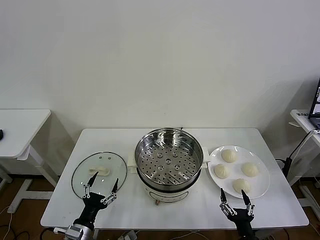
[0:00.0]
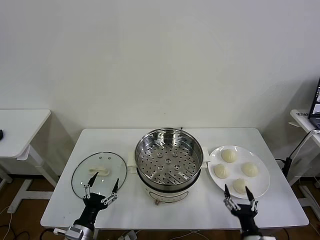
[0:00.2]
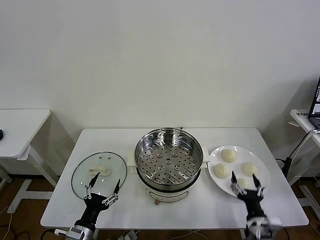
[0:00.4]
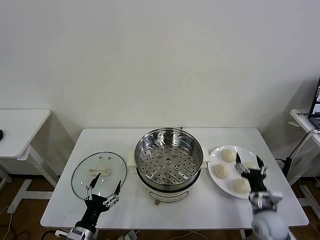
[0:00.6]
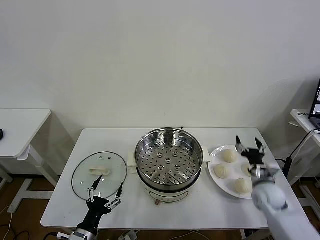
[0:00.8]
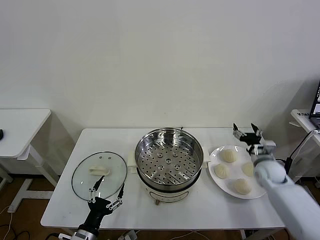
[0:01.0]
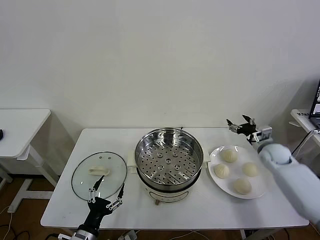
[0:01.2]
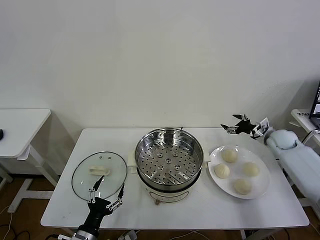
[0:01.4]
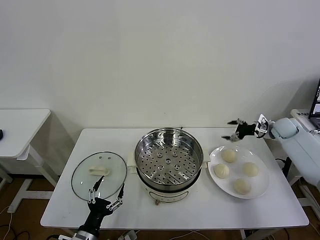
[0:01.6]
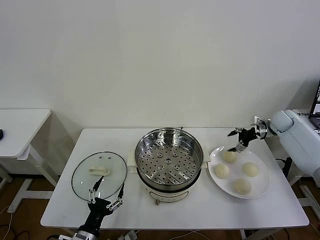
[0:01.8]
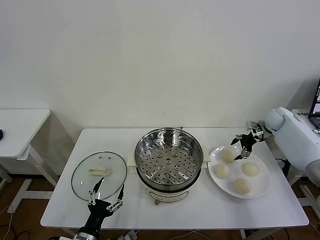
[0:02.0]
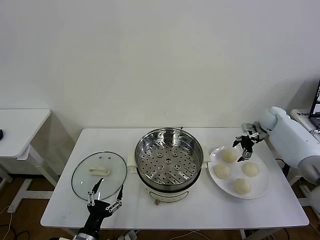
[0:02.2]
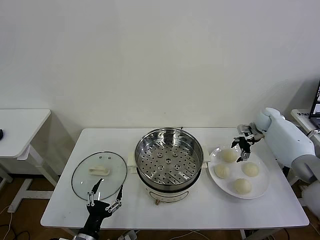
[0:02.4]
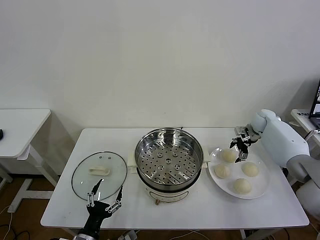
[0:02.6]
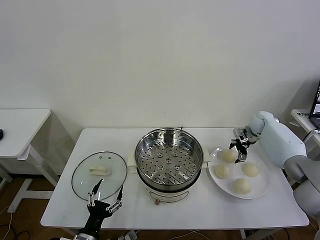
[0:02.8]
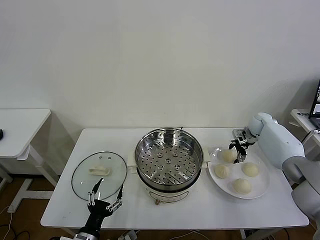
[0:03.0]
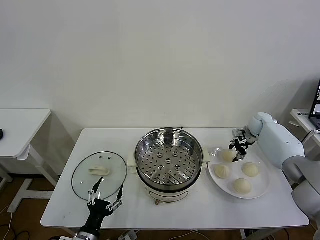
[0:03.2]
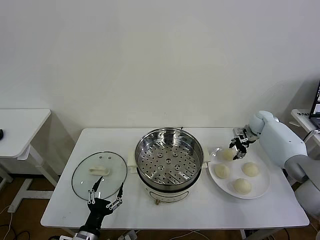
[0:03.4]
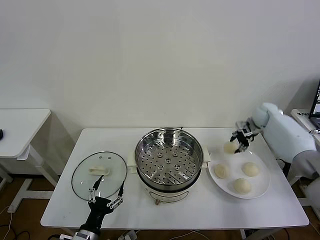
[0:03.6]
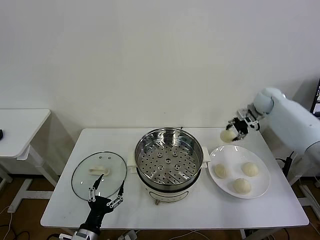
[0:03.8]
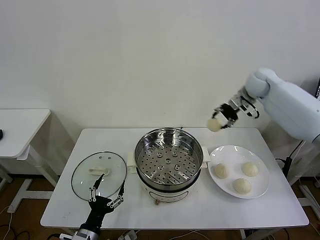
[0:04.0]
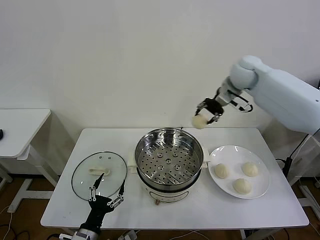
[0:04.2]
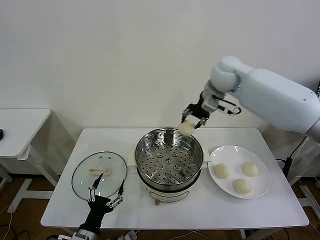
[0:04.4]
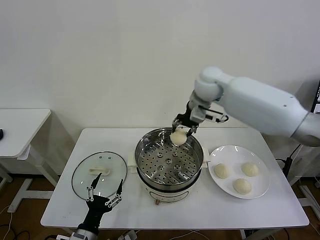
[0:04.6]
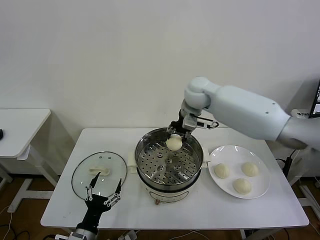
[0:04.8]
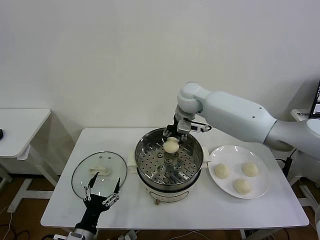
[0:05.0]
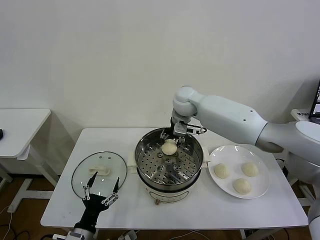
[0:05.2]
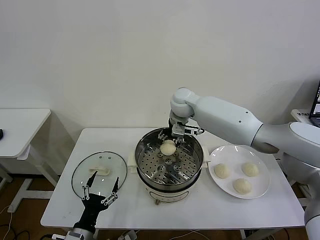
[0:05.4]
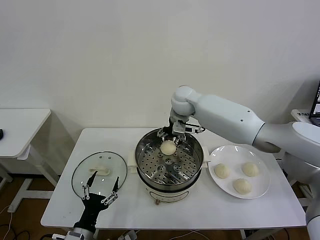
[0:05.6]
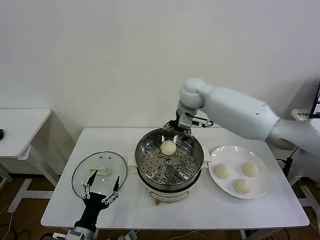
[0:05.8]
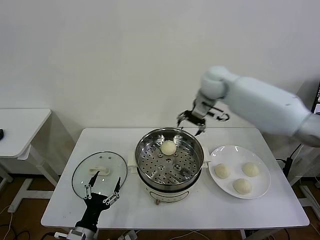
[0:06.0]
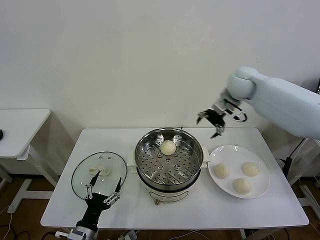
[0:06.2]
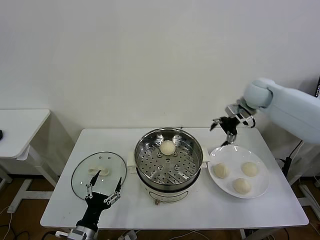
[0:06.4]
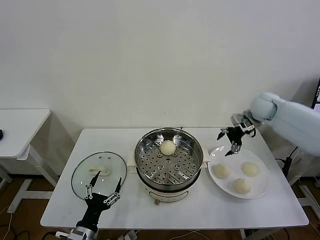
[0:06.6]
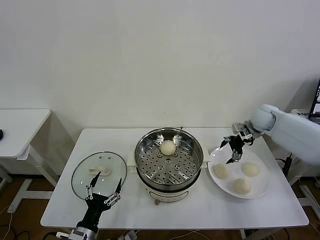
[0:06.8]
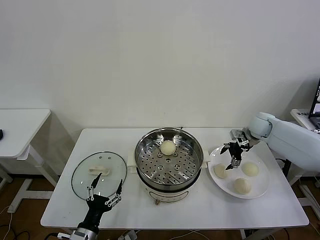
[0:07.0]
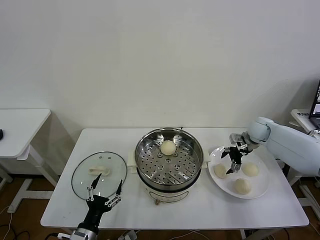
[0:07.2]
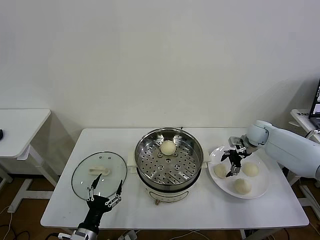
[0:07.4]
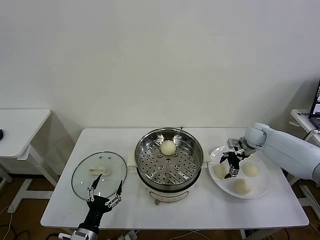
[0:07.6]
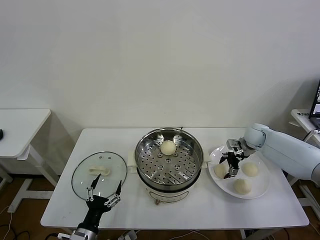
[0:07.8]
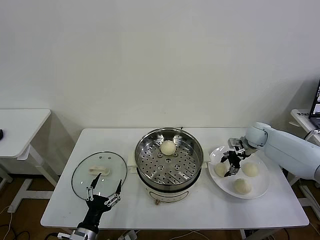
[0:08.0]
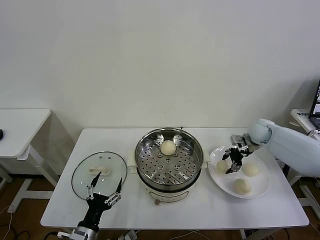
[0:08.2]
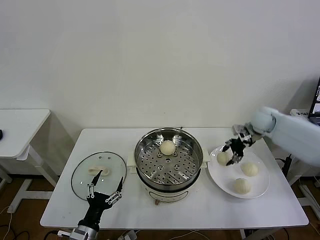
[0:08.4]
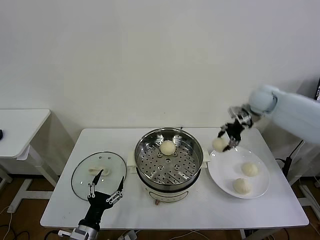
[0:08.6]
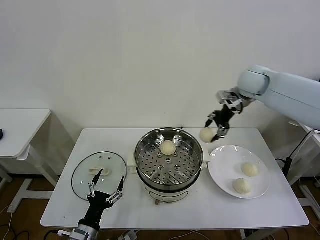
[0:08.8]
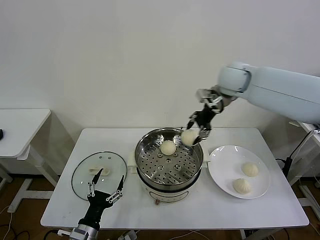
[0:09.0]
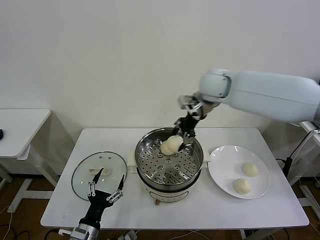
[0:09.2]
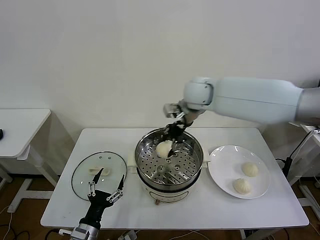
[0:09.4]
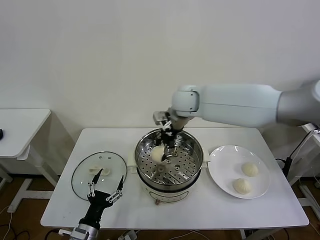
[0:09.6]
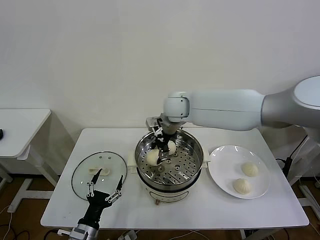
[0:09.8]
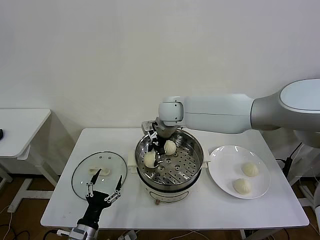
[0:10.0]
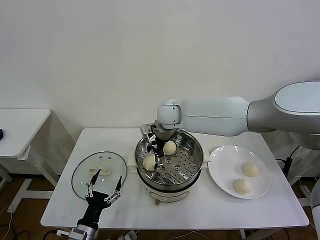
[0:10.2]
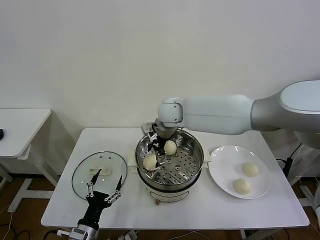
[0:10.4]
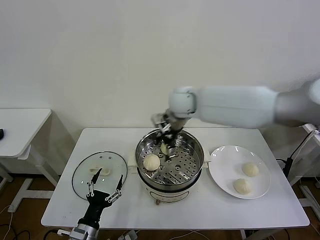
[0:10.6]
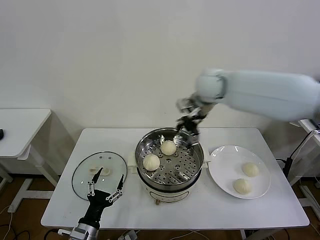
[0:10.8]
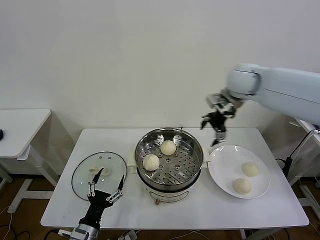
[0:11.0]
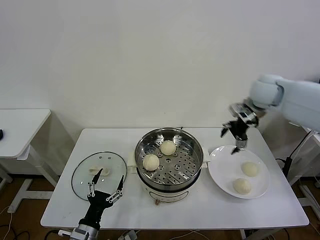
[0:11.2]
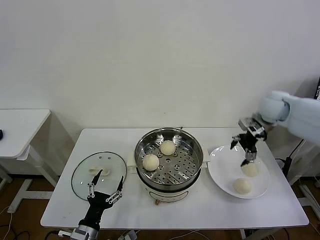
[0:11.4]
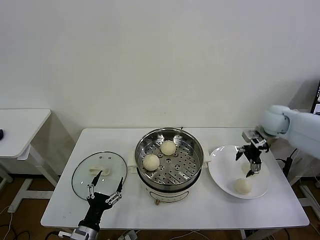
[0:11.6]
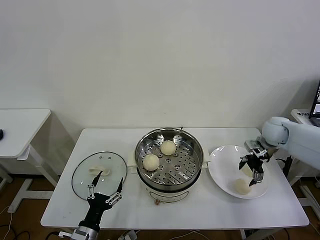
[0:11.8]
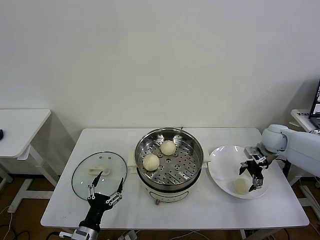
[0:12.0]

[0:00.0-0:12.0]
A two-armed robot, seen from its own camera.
Task of the whole recording: take steamed baozi put them in steamer then cover it.
Step, 0.0 to 3.0 s: Grasp the baozi in the plate with right gripper.
Step, 3.4 to 5.4 s: Place the baozi on the steamer with right gripper.
Step, 5.6 to 8.0 s: Grasp the baozi in the plate with right gripper.
Step, 8.2 to 10.2 s: Place the baozi on the steamer with right gripper.
1.6 to 3.0 s: The right gripper is displaced to the left by some 5 cm.
3.0 to 4.4 s: The right gripper moves to the left and upward, about 35 cm, and closes up.
4.4 to 6.0 s: The right gripper goes to the left and returns, approximately 10 cm each way, and opens its fingers.
6.0 to 7.6 s: The right gripper shifts about 30 cm downward and to the right.
7.6 to 9.0 s: The right gripper is displaced upward and to the left by approximately 30 cm, and closes up.
9.0 to 10.4 s: The right gripper is displaced to the left and downward by roughly 15 cm, and opens.
10.4 to 12.0 s: The right gripper goes roughly 40 cm to the right.

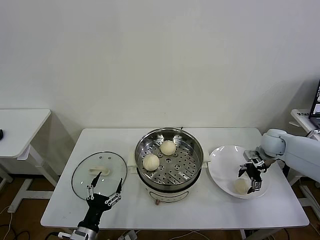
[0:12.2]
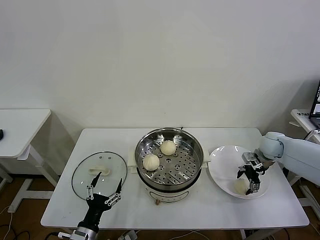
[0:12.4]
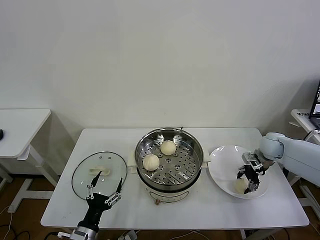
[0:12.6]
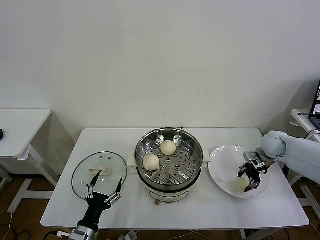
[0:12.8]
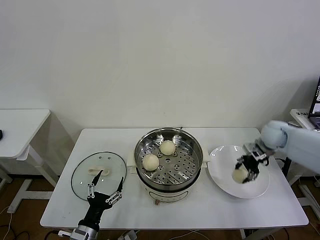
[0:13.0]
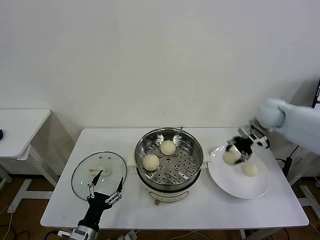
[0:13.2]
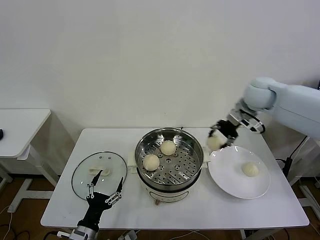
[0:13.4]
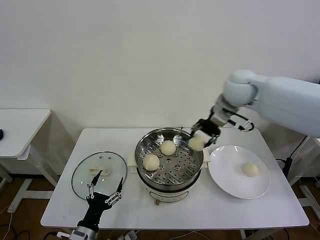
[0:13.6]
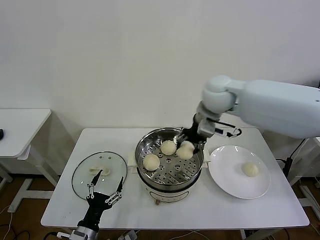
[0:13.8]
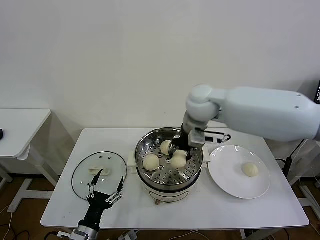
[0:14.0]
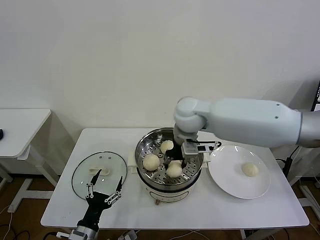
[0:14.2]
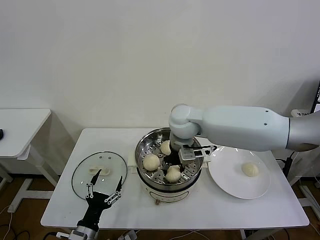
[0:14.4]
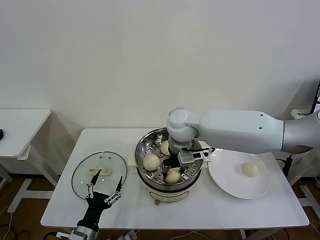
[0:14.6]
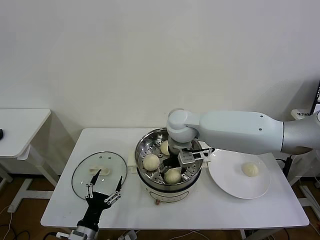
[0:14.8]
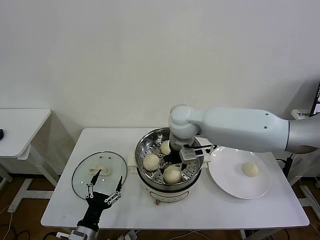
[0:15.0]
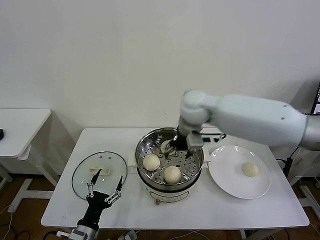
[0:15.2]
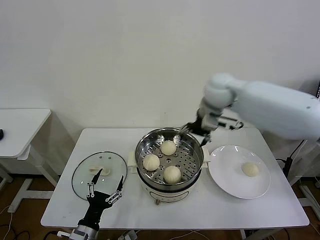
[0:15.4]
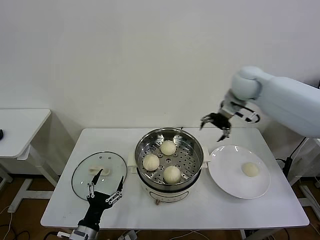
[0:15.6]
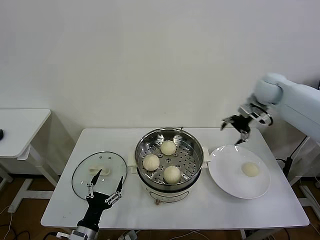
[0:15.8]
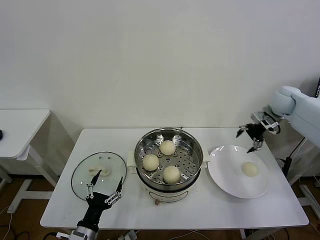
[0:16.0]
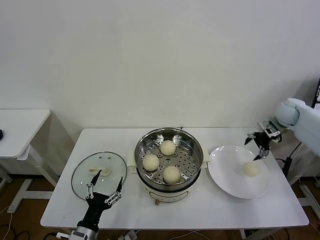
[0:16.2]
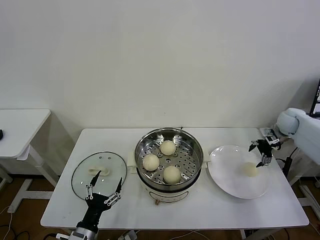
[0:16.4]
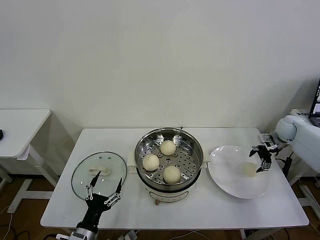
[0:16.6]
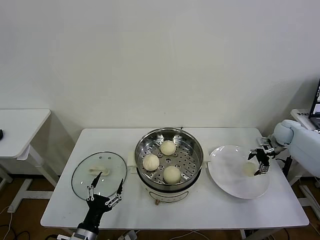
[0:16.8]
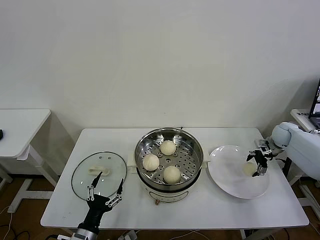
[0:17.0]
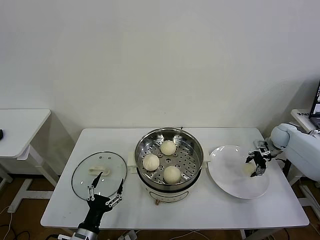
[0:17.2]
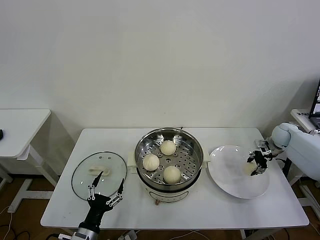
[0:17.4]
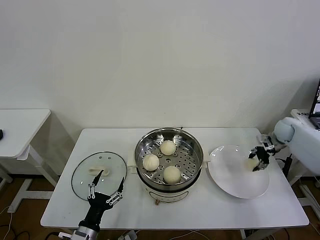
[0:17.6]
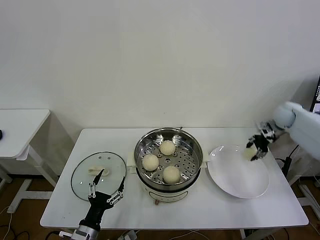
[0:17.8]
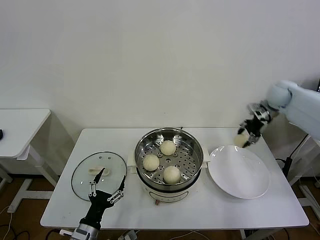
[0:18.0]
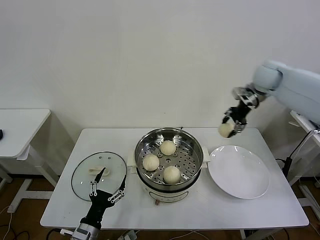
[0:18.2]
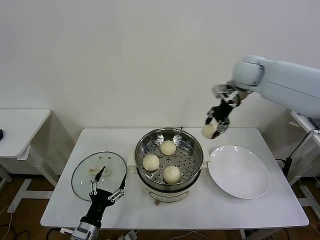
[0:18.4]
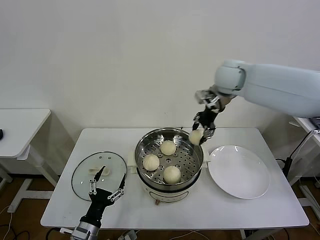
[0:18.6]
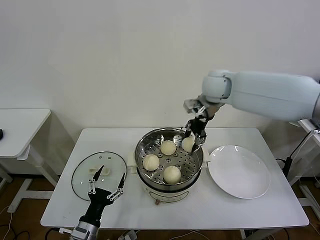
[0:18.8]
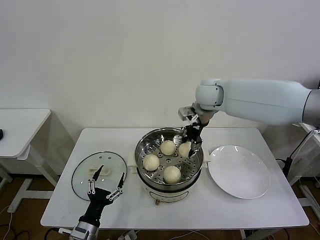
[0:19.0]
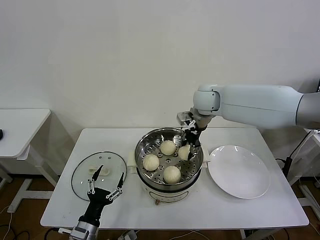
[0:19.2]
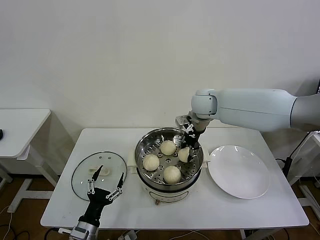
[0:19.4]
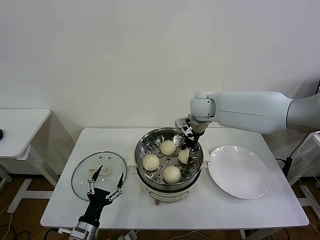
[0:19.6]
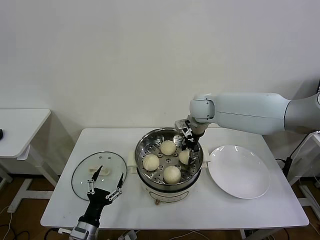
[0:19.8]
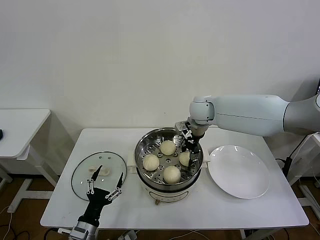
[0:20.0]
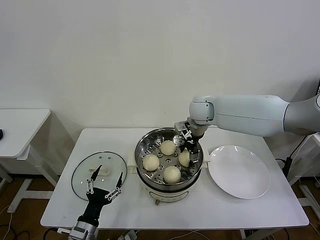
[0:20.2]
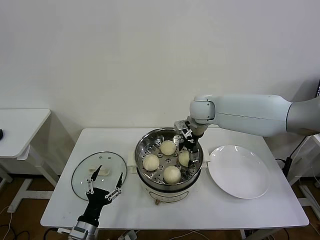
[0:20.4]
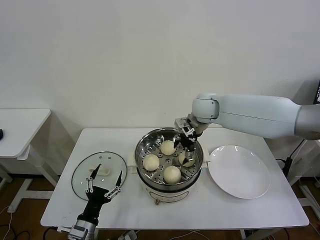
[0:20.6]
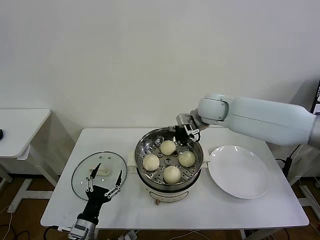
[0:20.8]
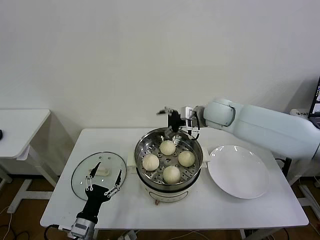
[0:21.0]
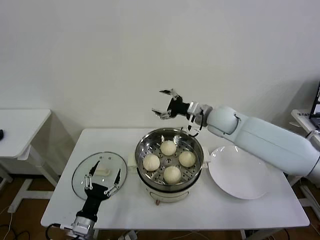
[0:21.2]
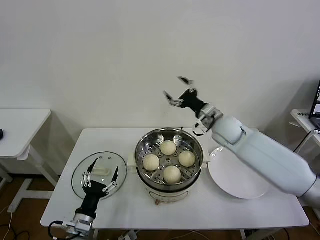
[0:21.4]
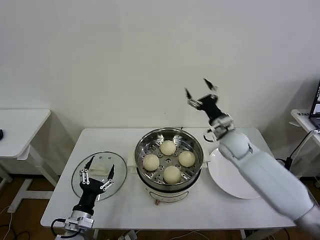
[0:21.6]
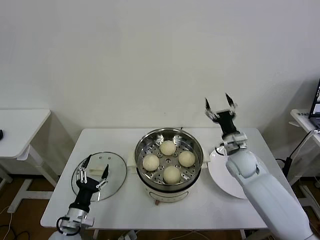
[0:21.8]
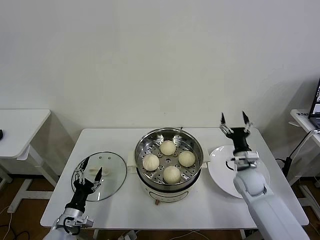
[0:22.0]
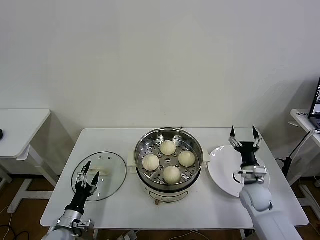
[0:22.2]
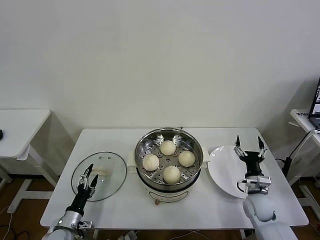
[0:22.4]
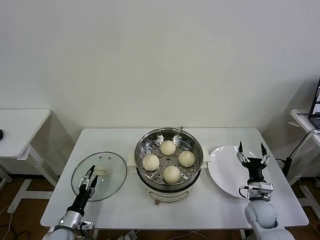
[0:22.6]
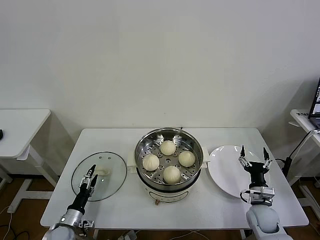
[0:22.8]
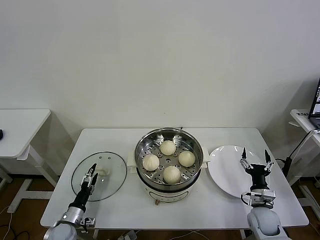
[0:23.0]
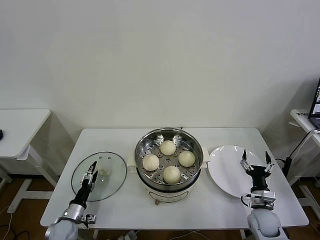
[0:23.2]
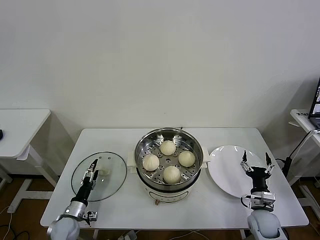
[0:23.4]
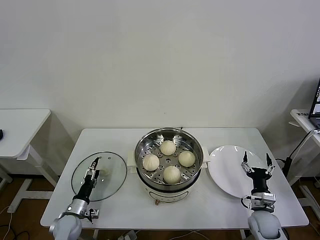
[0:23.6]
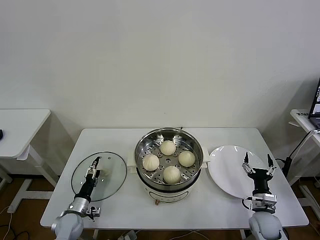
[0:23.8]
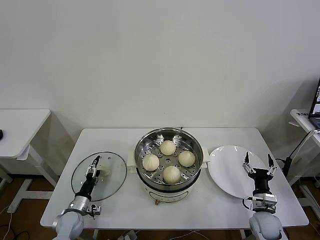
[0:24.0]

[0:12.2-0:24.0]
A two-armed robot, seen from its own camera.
Task of the whole recording: take steamed baozi put them in steamer then cover it.
Step, 12.8 to 14.8 s: Place the baozi on the steamer with right gripper.
Step, 15.0 to 17.4 s: Grasp the baozi in the plate with right gripper.
Step, 17.6 to 20.2 s: Place the baozi on the steamer with right gripper.
12.2 to 13.6 s: The right gripper travels upward and to the left by about 30 cm, and closes.
13.6 to 15.2 s: The right gripper is displaced to the left by approximately 10 cm, and opens.
15.2 to 16.6 s: The right gripper moves to the right and downward, approximately 40 cm.
16.6 to 18.2 s: The right gripper heads upward and to the left, covering roughly 25 cm, and closes.
18.2 to 19.6 s: The right gripper shifts approximately 20 cm to the left and downward.
19.6 to 21.0 s: The right gripper shifts by approximately 5 cm, and opens up.
21.0 to 22.6 s: The right gripper travels downward, backward and to the right by approximately 40 cm. The left gripper shifts roughly 15 cm downward, to the left and forward.
22.6 to 24.0 s: The left gripper is displaced forward by some 5 cm.
